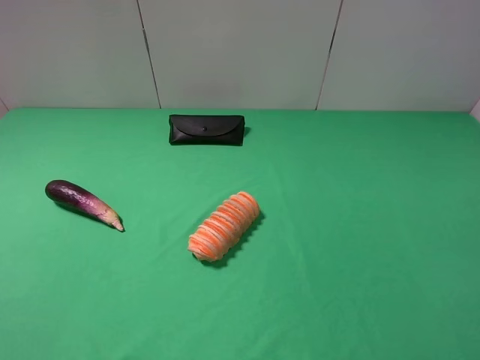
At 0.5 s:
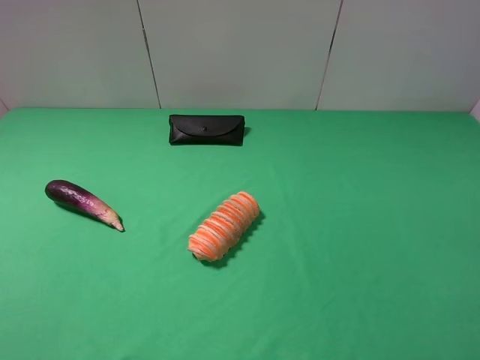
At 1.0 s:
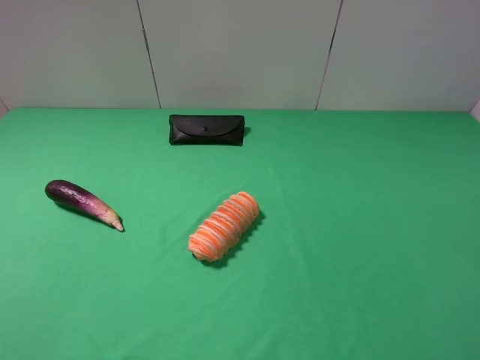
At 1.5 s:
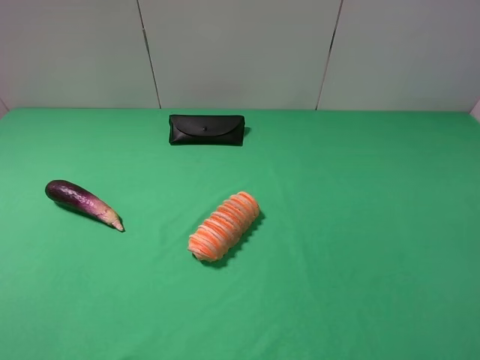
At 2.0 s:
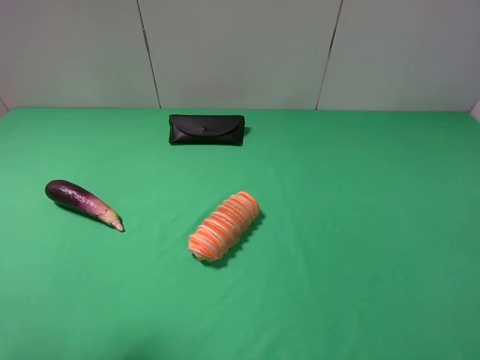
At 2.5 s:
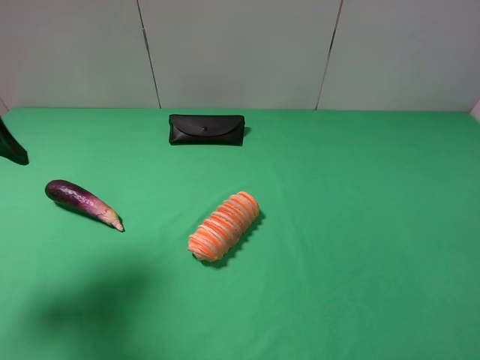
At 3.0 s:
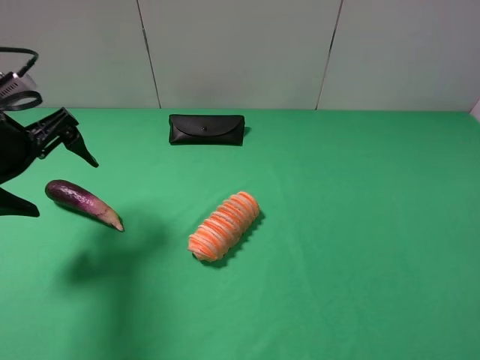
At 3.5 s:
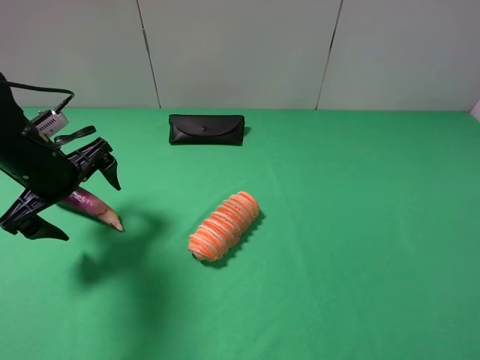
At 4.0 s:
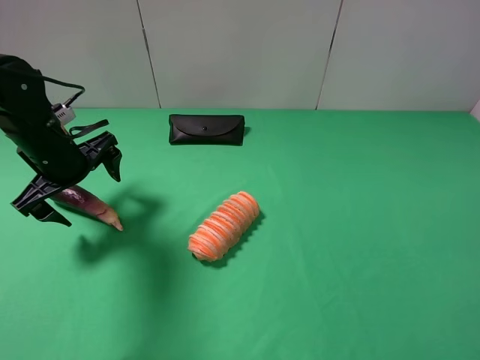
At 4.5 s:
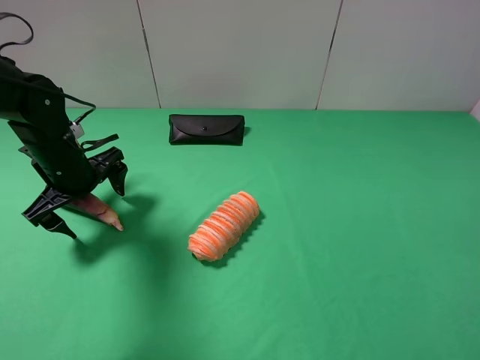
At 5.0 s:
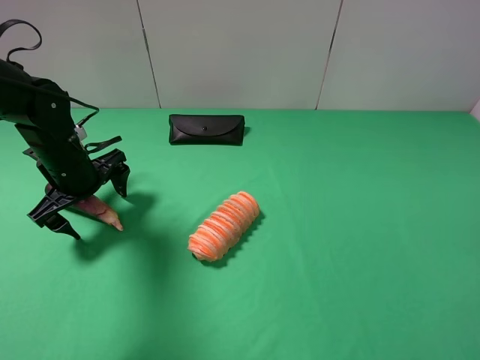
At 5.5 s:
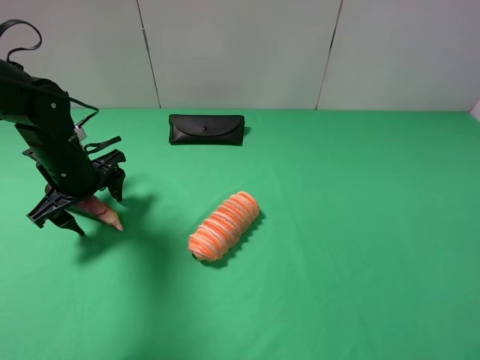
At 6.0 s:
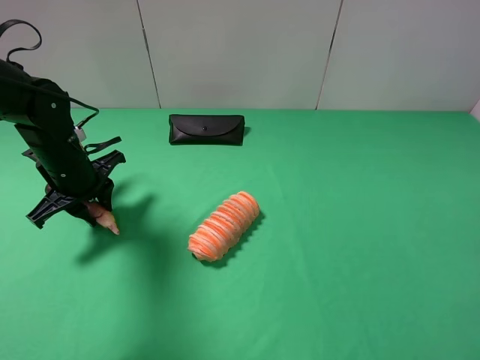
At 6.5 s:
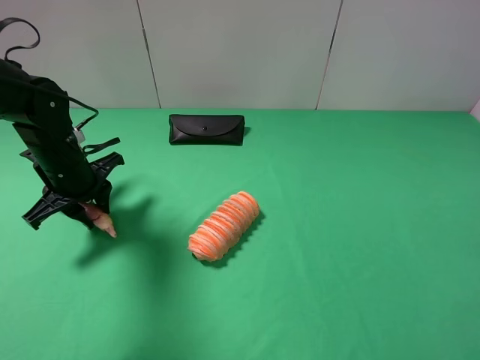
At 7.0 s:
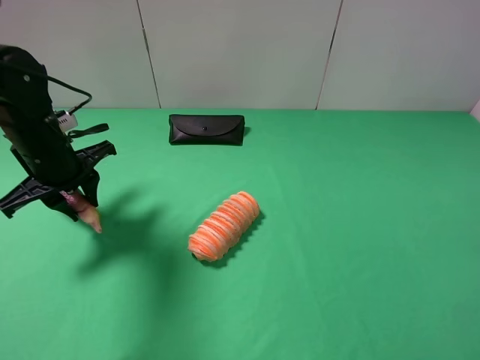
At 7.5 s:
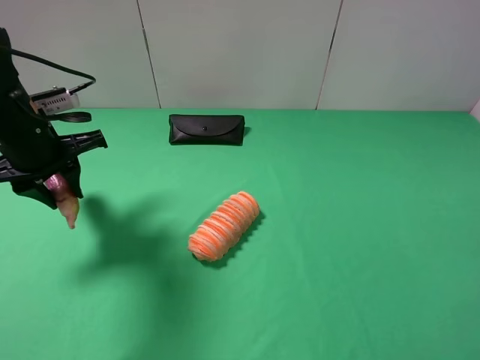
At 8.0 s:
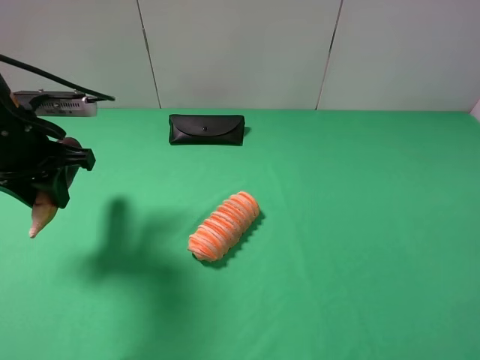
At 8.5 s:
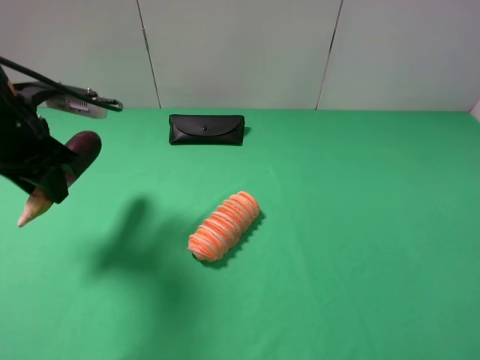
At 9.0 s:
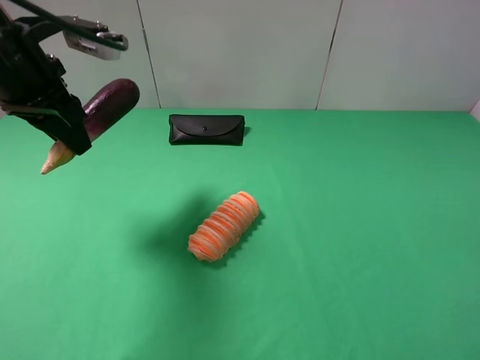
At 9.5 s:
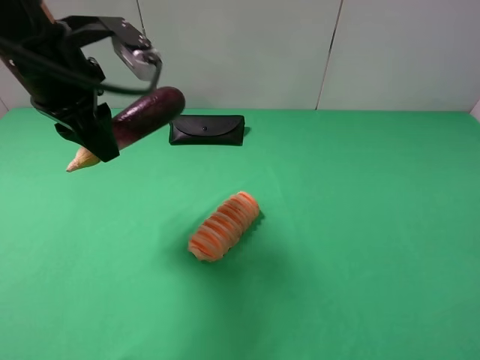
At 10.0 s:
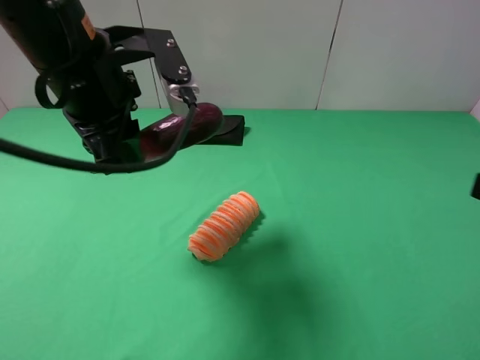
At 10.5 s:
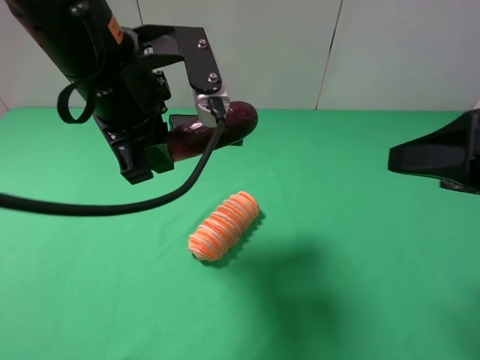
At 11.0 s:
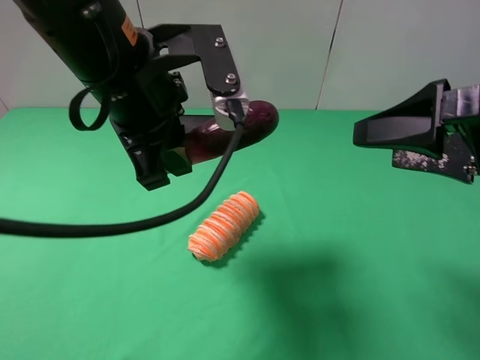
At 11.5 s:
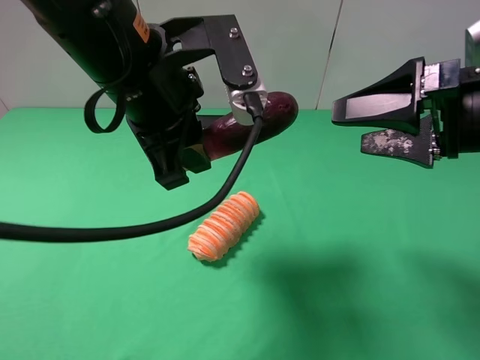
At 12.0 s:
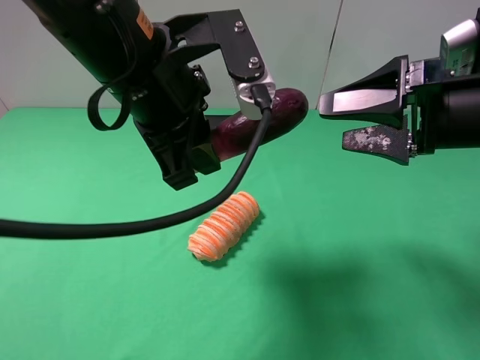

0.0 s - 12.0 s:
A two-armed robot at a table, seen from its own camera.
Task of the whole recording: use the left gripper to pick up the item and transfer it from the left gripper to the right gripper.
Step, 0.0 s - 6.0 s: Use the left gripper to grab the long bread on the left side of the table.
2.0 s - 4.0 s: The left gripper is displaced forward and downward by some 25 cm.
4.0 s - 6.0 s: The left gripper closes its fingers.
6.0 s - 8.0 s: The left gripper moves upward, approximately 10 cm.
8.0 s - 10.0 s: The left gripper goes about 15 cm to the right and upward. Meanwhile the right gripper shifts about 5 cm forward.
10.0 s - 12.0 s: The right gripper travels forward by about 15 cm. The left gripper shifts approximately 5 cm to the right.

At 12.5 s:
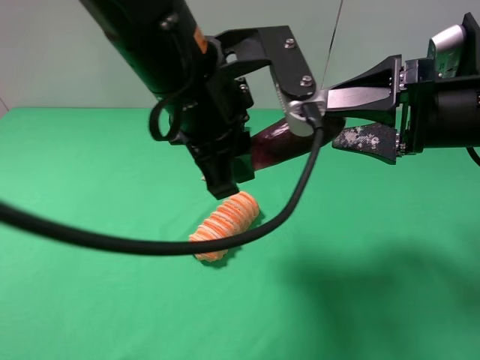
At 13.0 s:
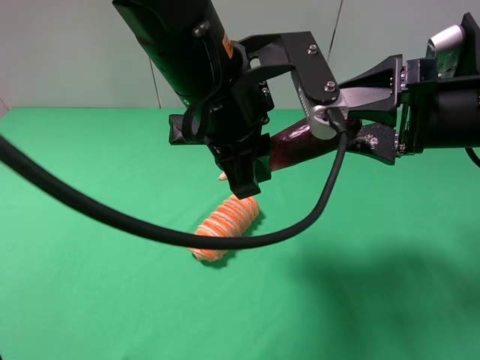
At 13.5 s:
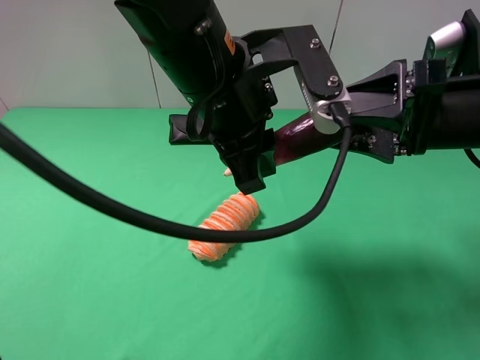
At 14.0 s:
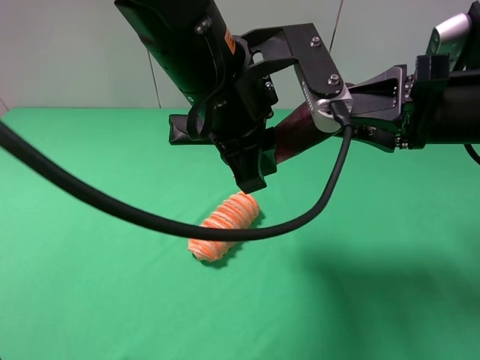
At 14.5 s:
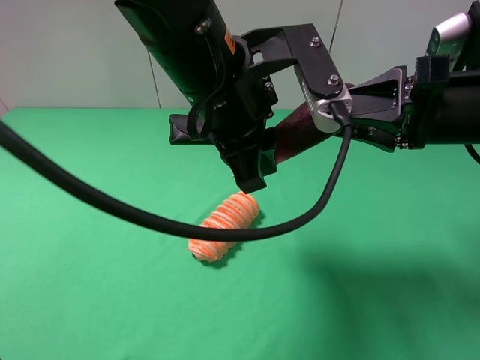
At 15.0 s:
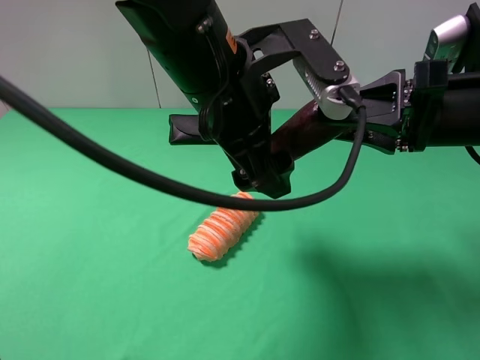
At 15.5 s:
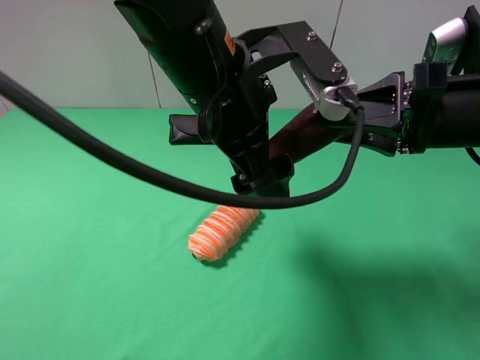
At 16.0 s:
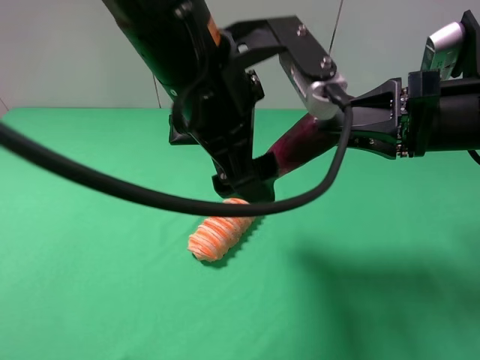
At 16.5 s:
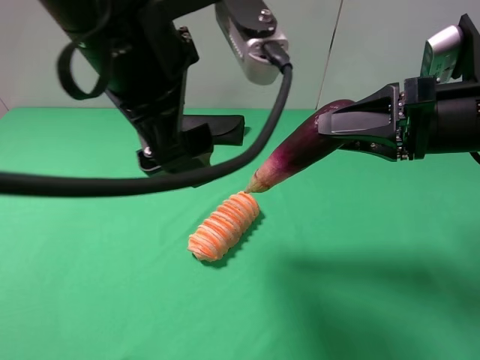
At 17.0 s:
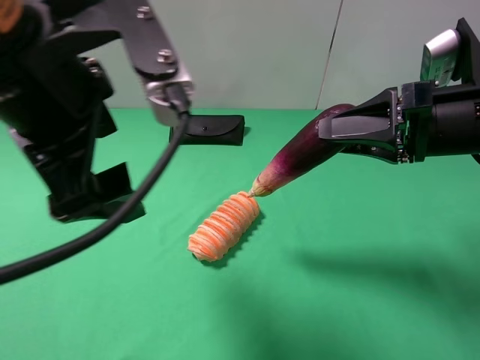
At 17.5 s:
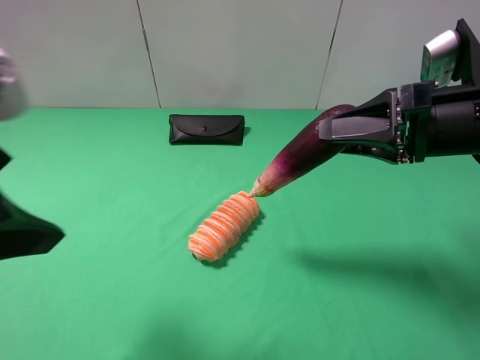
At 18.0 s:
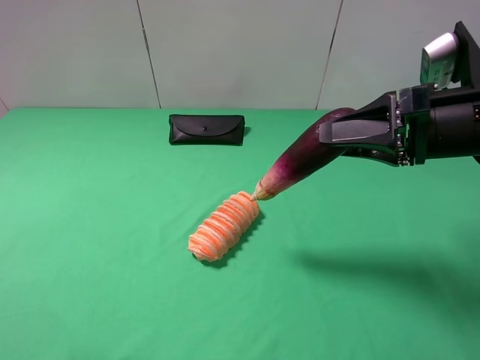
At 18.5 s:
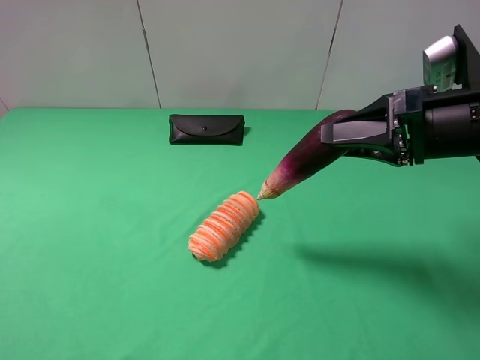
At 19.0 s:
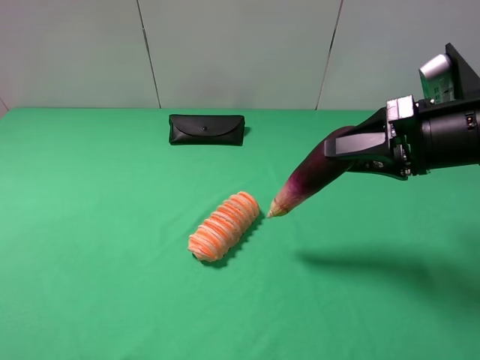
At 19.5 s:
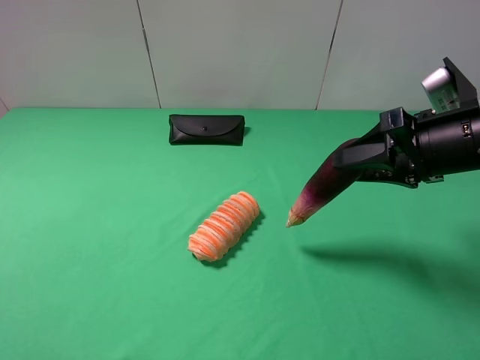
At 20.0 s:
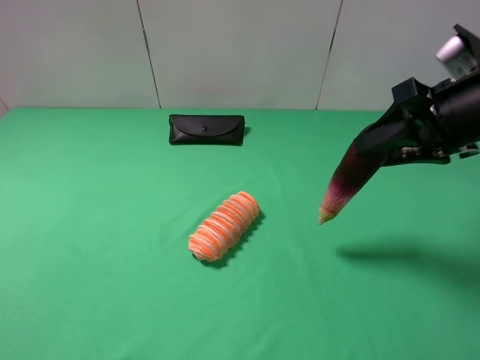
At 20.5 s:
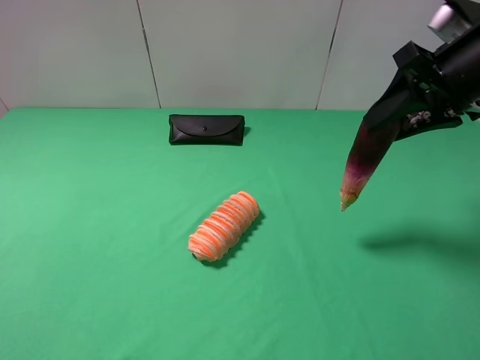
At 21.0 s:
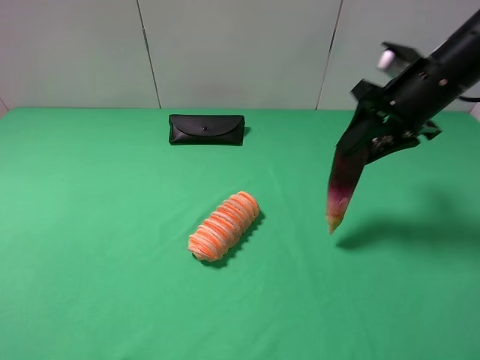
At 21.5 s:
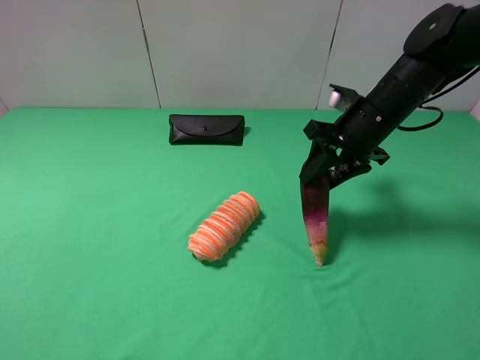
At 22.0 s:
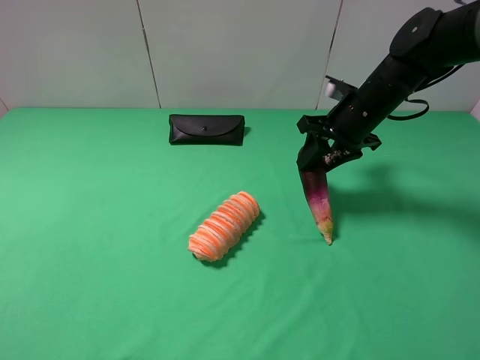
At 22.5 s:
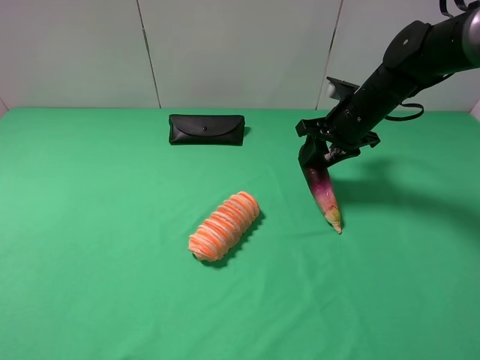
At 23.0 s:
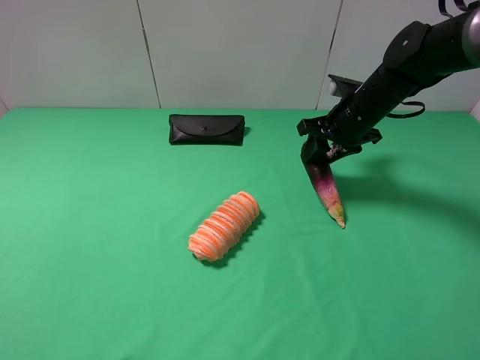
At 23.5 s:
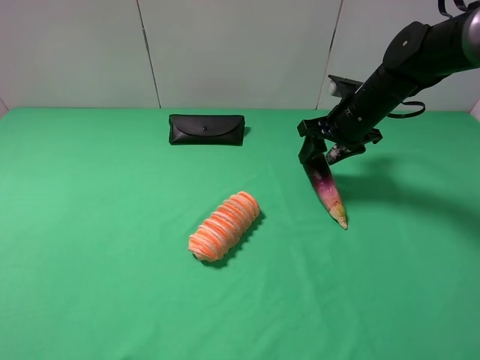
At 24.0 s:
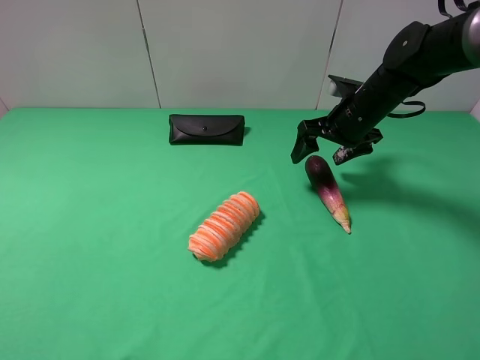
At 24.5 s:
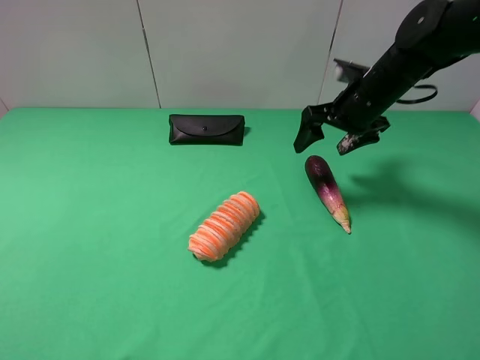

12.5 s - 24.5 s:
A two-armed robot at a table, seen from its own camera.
Task of the whole recording: use the left gripper to pick up the item and transfer it from the left gripper to the right gripper.
Step, 12.5 s - 15.5 s: Pass the long bread to the right gripper.
Step, 16.0 s - 24.0 s: The right gripper places long bread on the right side of the table.
12.5 s - 14.5 s: The right gripper closes.
14.5 s - 16.5 s: The left gripper moves to the left and upward, approximately 10 cm, and opens its fingers.
16.5 s - 18.5 s: The left gripper goes about 30 cm to the left and backward.
18.5 s - 20.5 s: The right gripper goes roughly 5 cm forward.
20.5 s - 22.5 s: The right gripper heads downward, forward and to the left, covering roughly 20 cm.
22.5 s - 24.5 s: The right gripper opens its fingers.

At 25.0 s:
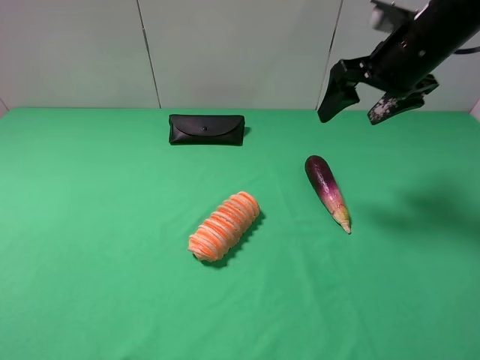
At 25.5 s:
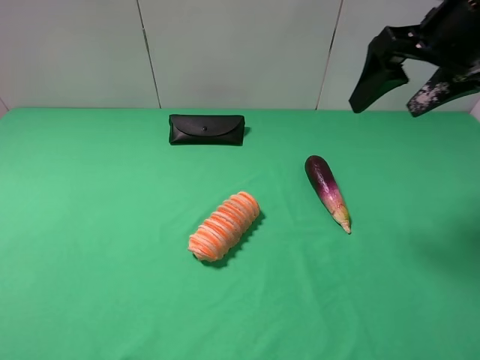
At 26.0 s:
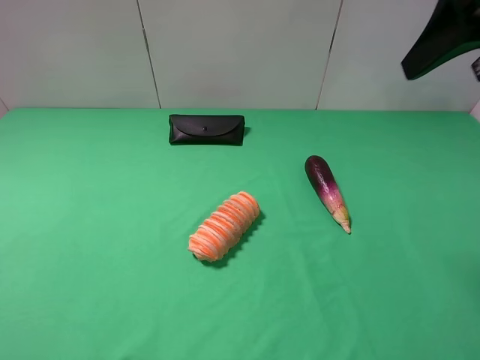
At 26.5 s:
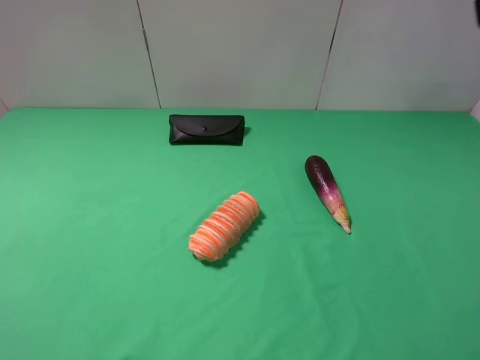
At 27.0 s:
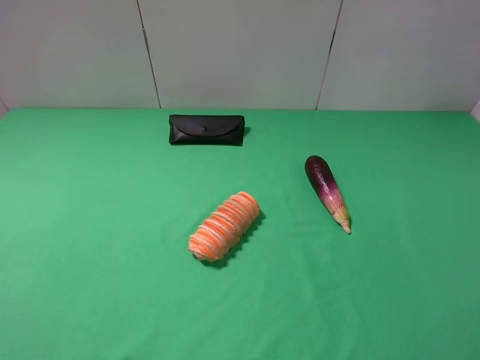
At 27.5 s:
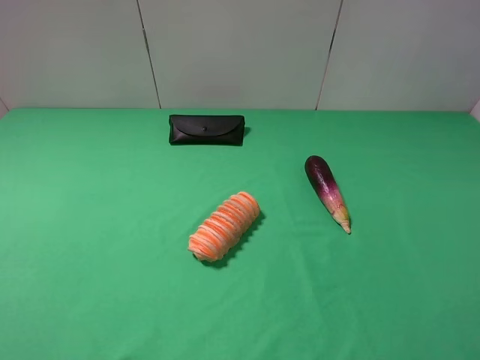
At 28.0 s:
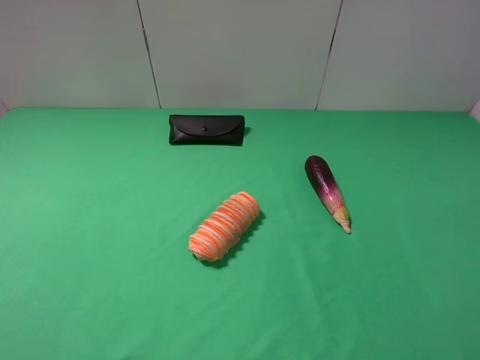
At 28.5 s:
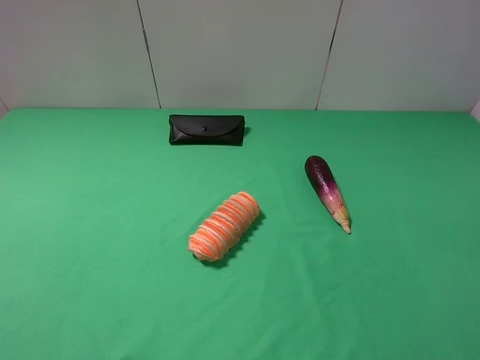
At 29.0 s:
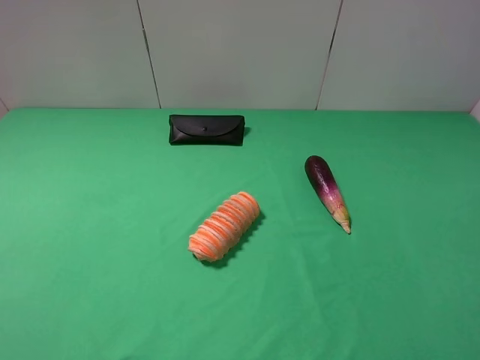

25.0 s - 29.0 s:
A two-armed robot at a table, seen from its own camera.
Task of the whole recording: use the left gripper to pick up the item and transfer it from the left gripper to the right gripper.
25.0 s - 27.0 s: The right gripper is displaced backward and upward by about 30 cm.
